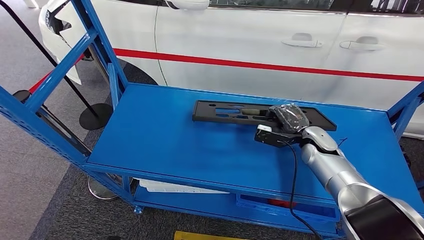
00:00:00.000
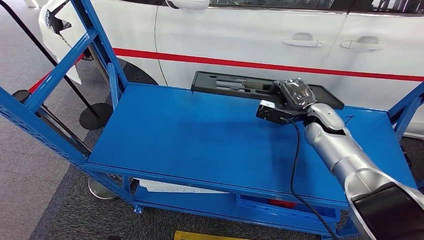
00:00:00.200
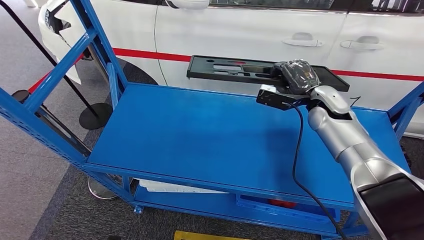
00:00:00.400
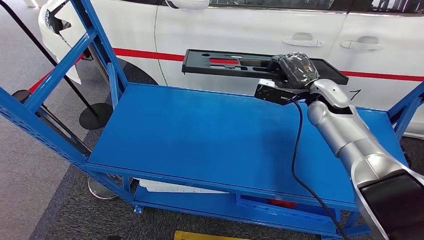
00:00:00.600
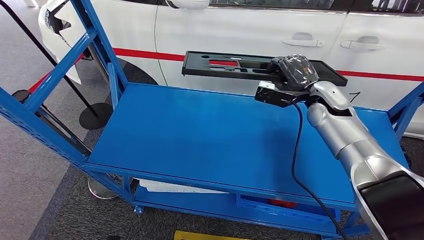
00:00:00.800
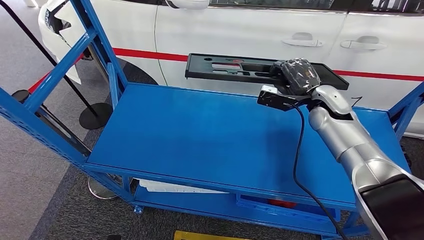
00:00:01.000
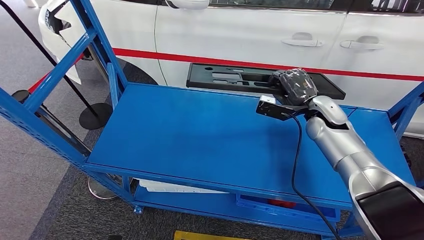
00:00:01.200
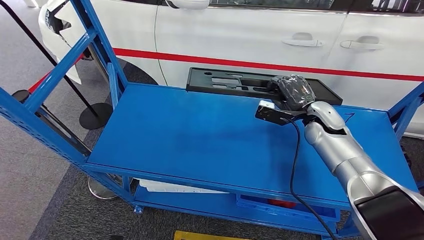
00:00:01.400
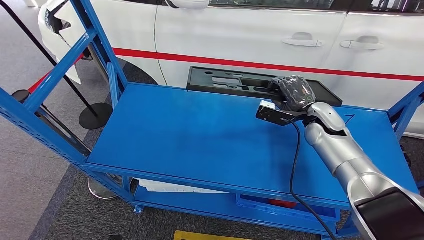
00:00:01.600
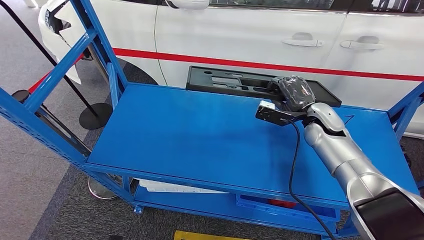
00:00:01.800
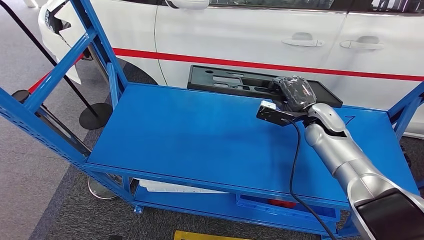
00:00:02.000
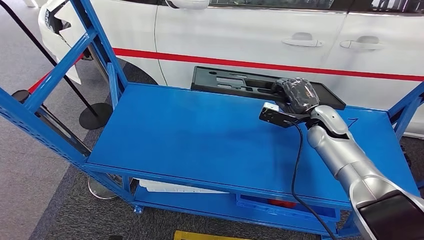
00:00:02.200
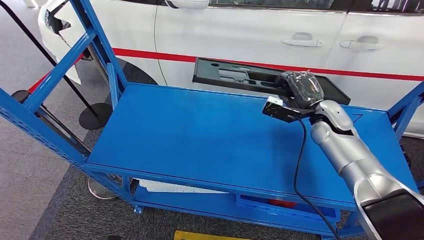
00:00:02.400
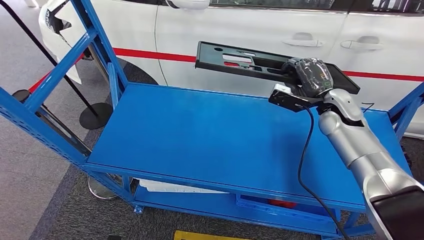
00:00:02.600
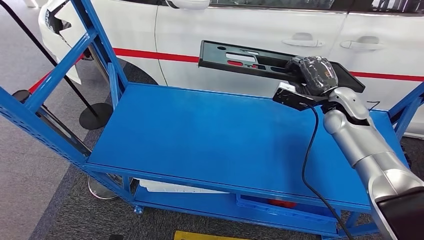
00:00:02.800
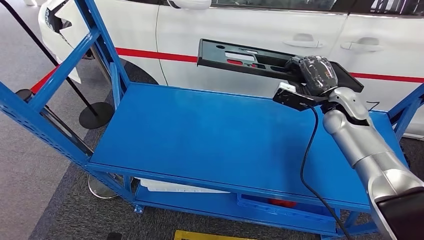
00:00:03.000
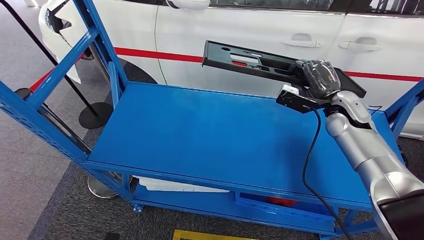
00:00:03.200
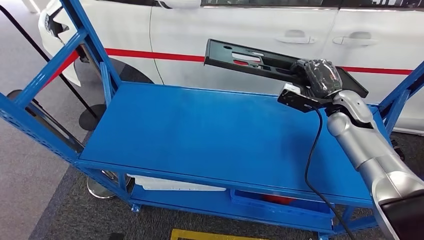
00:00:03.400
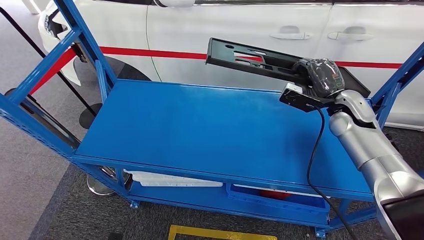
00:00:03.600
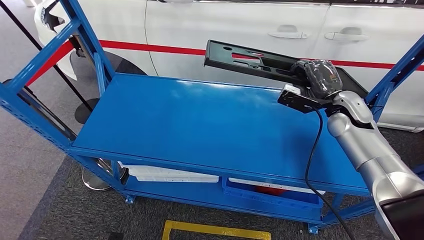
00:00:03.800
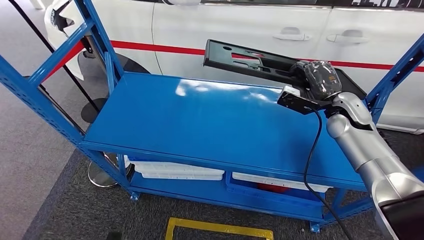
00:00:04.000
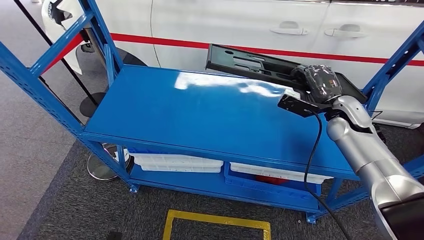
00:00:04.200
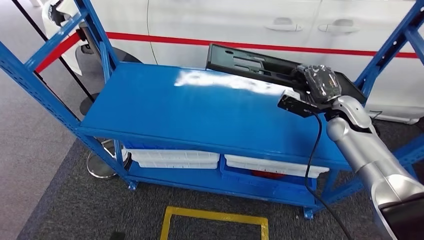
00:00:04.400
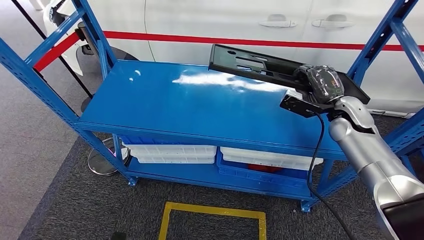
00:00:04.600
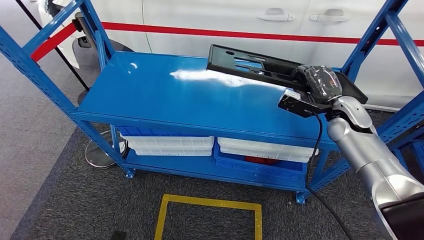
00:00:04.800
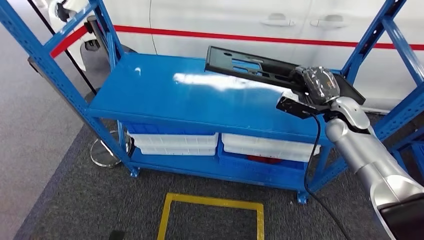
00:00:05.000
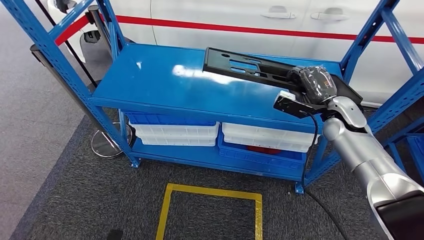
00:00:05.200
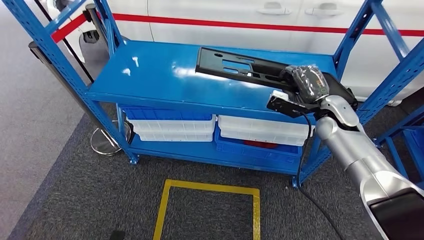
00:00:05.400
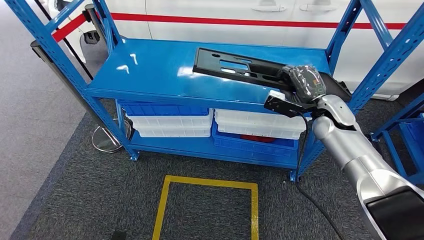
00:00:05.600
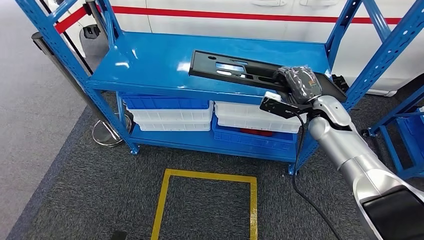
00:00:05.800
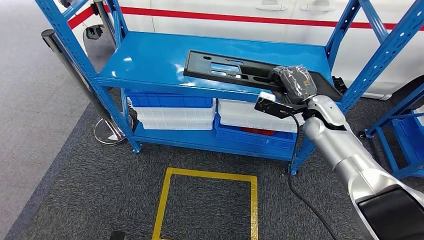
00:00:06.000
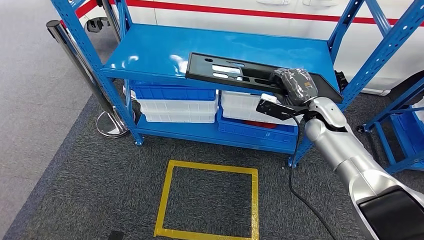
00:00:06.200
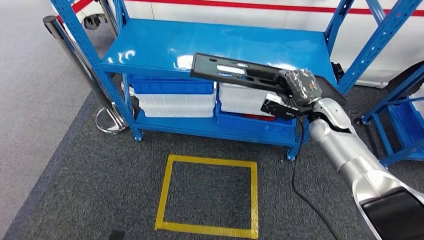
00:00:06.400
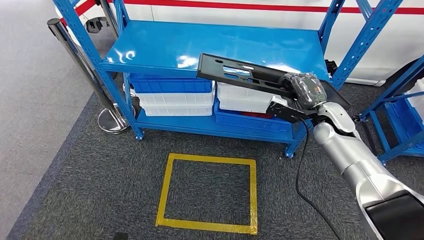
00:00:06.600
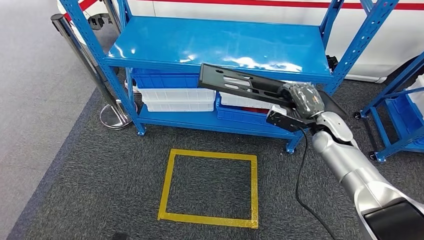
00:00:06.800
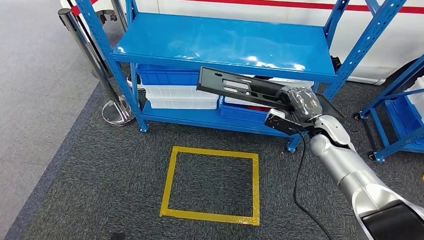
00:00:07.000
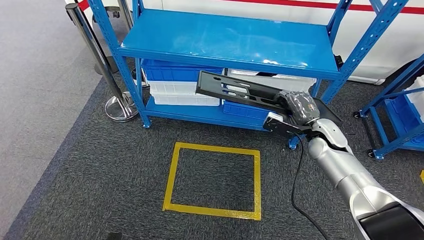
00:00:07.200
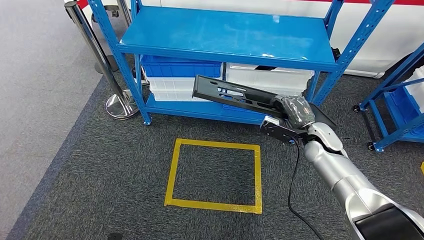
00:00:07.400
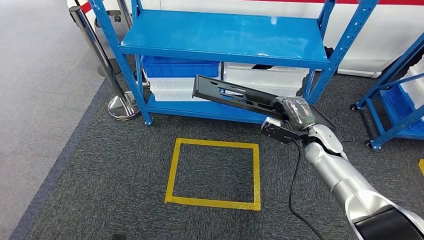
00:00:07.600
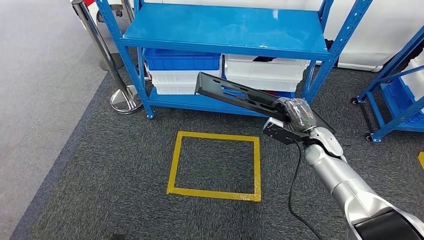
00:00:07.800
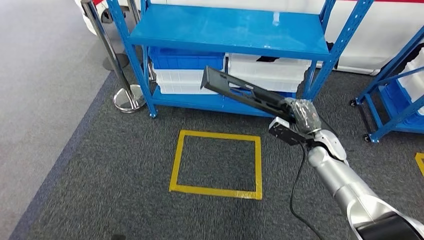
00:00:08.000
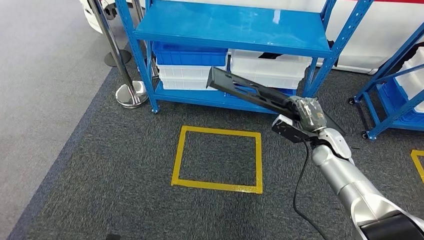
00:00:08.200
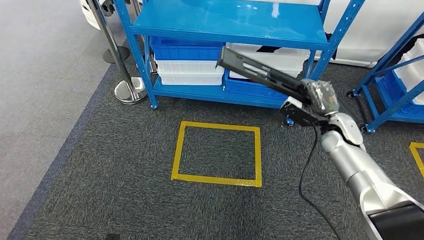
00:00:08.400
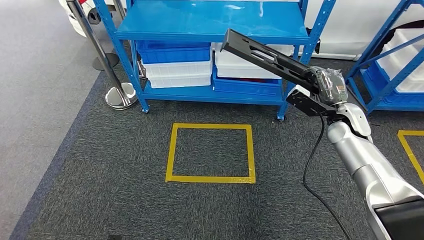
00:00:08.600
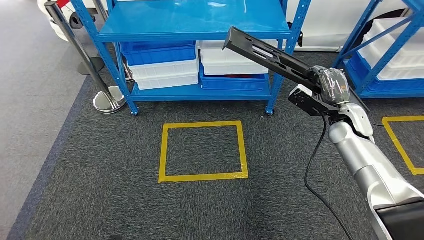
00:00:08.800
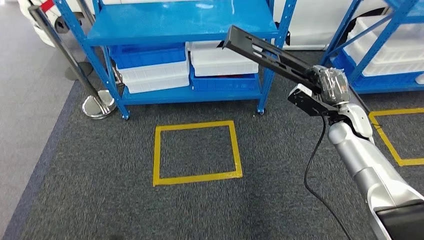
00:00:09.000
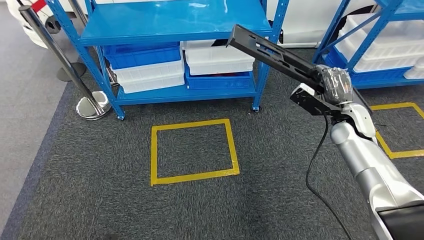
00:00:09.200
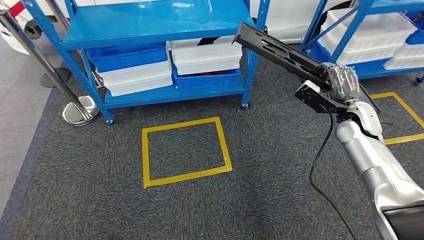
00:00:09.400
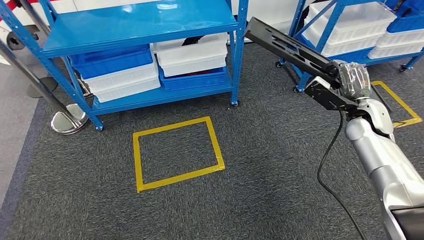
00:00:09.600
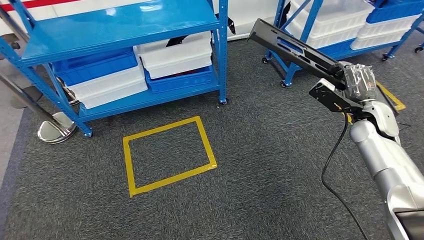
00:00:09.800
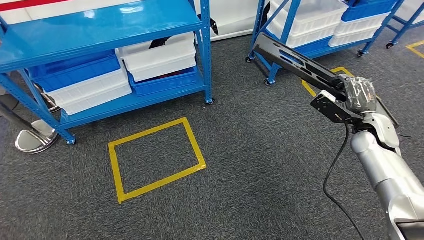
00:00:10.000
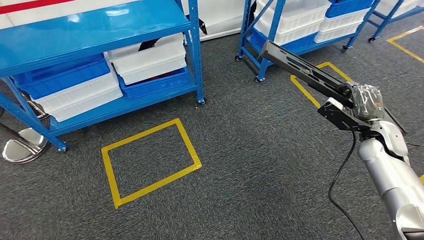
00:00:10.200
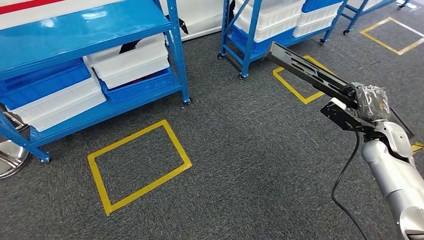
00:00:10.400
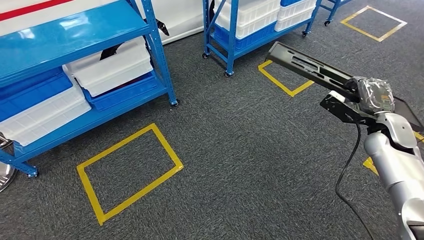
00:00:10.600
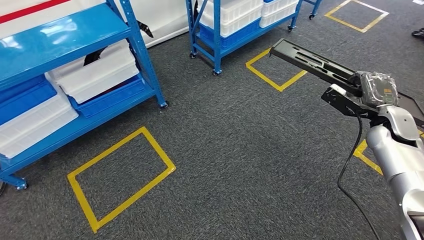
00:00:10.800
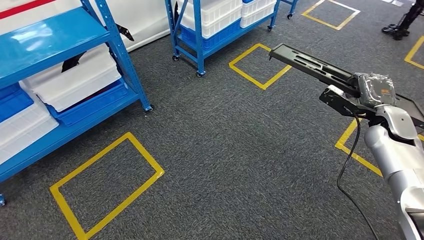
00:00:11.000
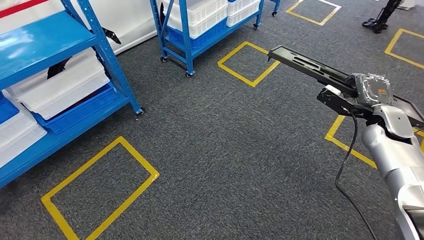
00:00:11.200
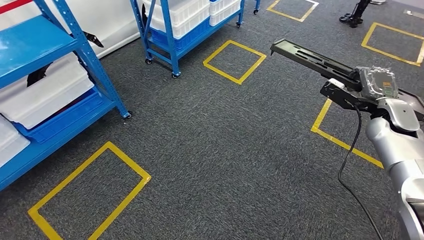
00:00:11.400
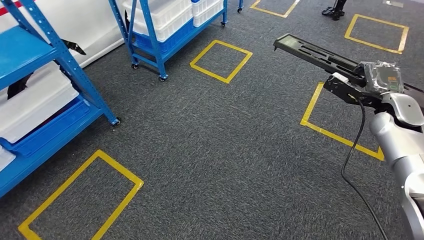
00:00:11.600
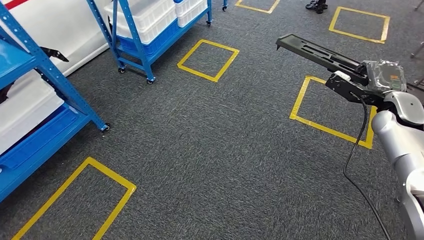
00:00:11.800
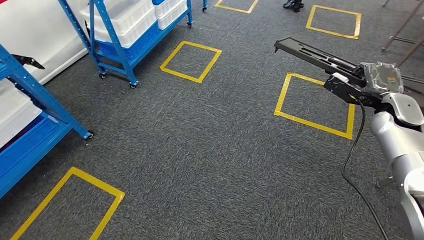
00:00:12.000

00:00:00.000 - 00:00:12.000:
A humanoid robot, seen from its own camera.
00:00:00.000 - 00:00:01.600: The right hand heads upward, covering about 5 cm.

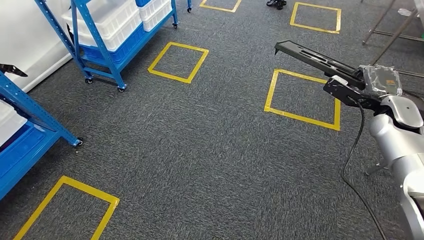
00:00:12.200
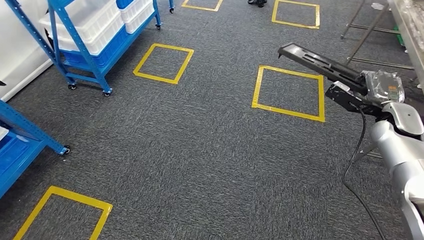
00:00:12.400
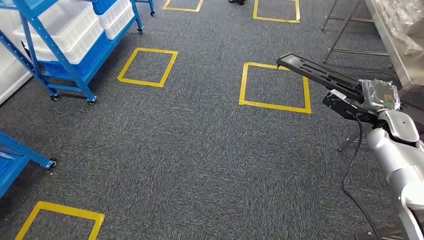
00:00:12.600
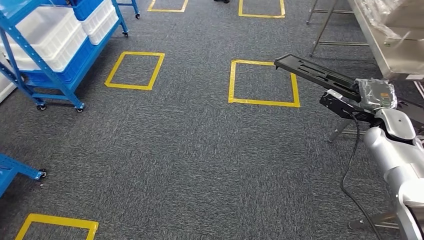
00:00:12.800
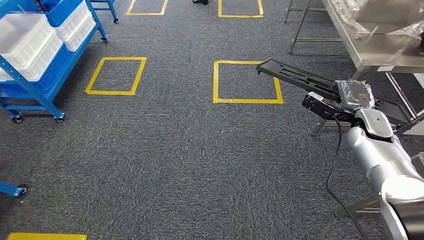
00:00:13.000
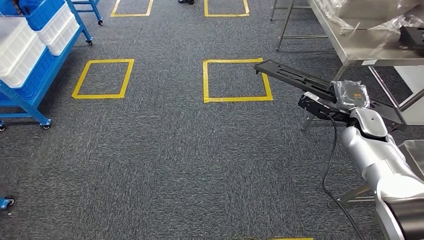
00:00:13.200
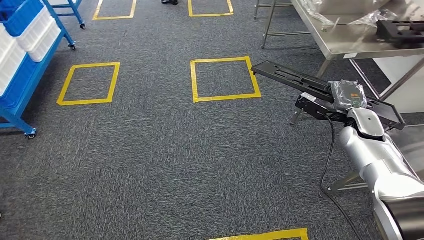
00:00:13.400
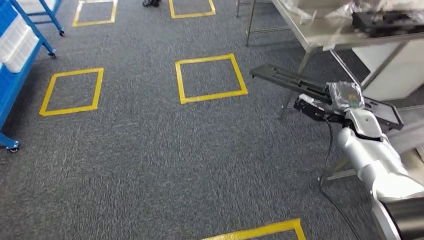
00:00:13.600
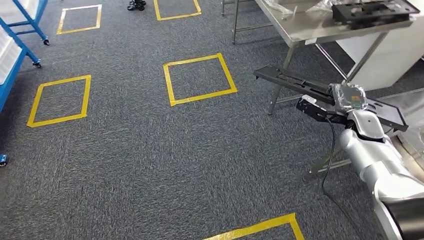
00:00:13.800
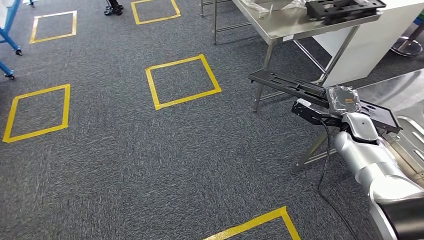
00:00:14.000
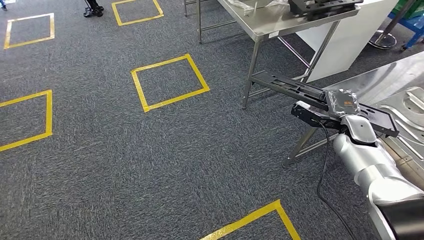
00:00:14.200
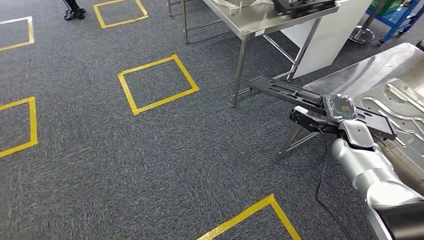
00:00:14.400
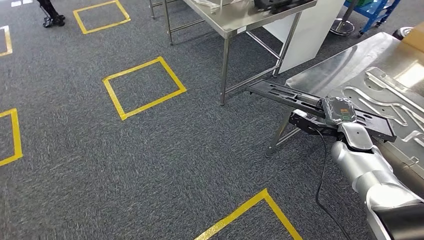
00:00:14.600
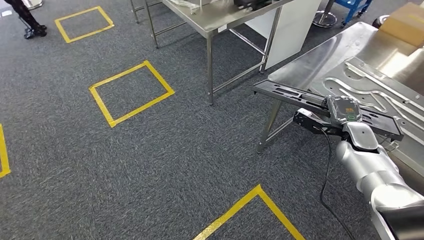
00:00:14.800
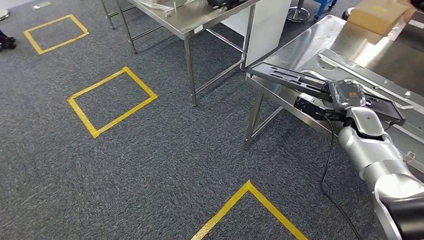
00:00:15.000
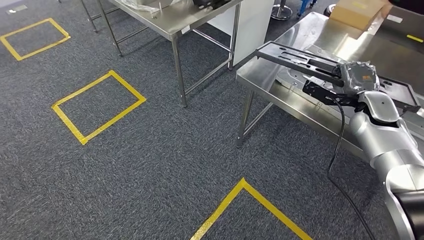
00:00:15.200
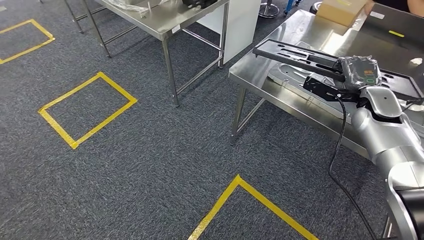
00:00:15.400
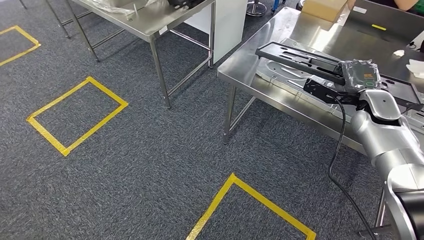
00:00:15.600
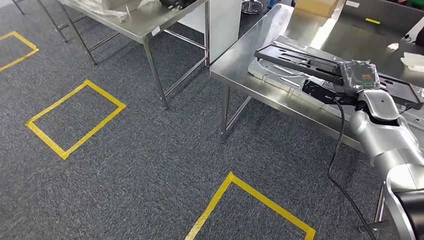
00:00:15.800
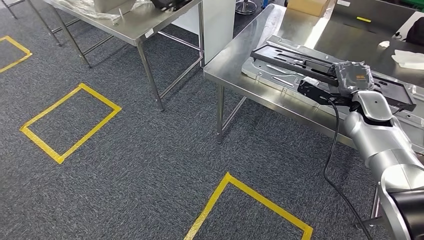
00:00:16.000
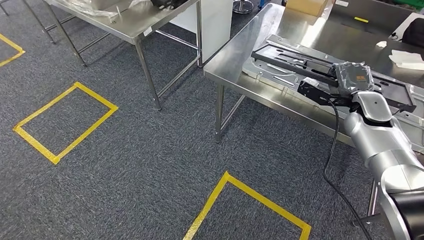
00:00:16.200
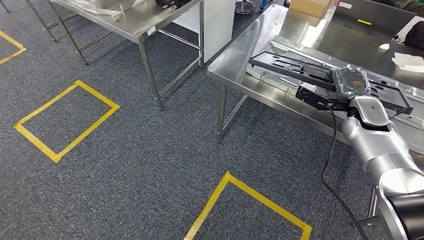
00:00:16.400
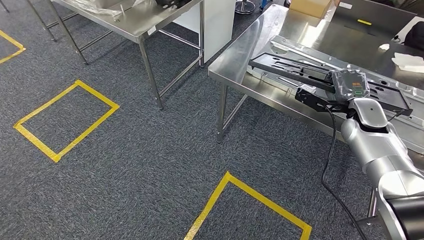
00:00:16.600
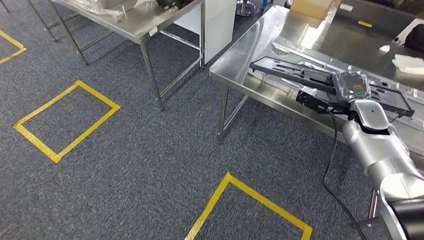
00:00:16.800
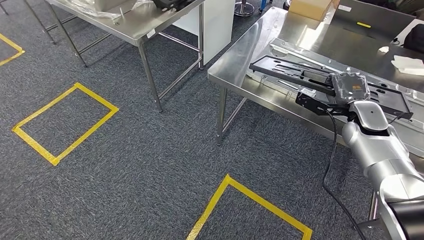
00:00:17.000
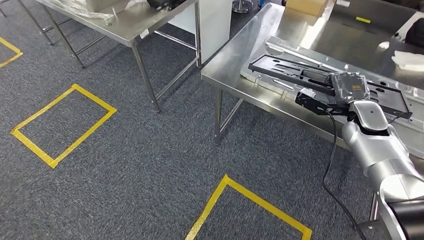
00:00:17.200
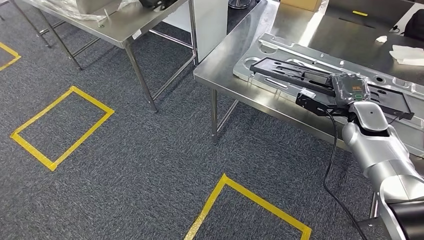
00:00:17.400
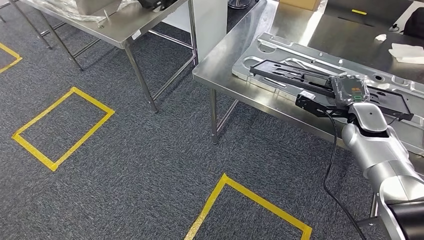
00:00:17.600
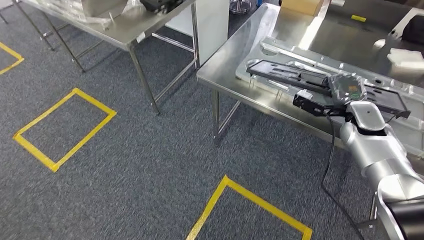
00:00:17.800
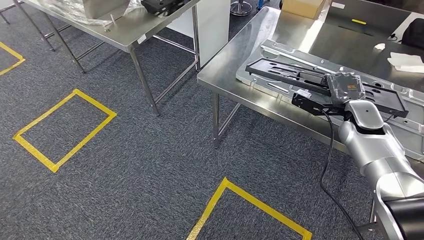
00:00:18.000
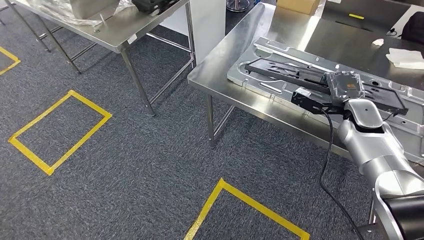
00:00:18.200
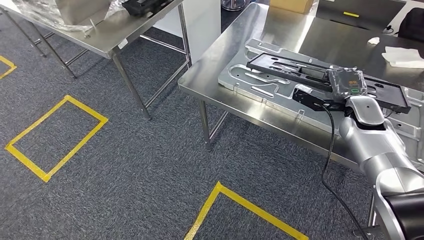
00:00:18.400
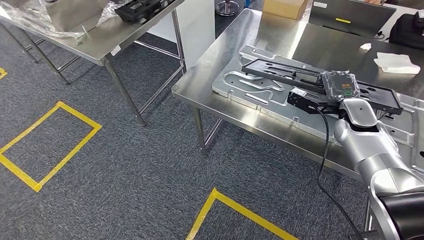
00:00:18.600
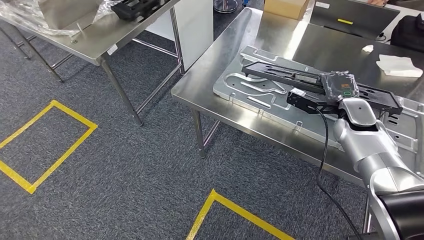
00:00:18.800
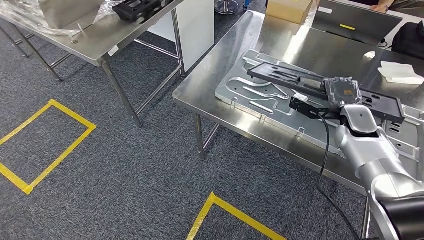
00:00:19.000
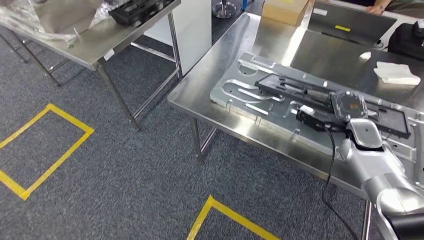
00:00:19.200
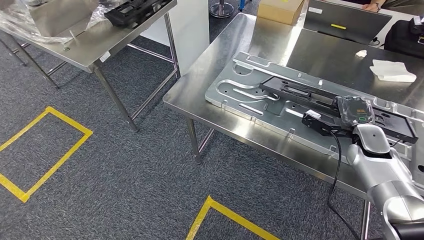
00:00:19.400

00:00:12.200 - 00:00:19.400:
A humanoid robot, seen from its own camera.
Step, 00:00:12.200 - 00:00:17.800: Move the large material to the workbench.
